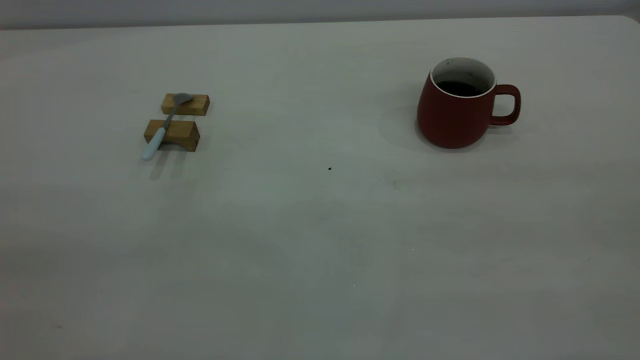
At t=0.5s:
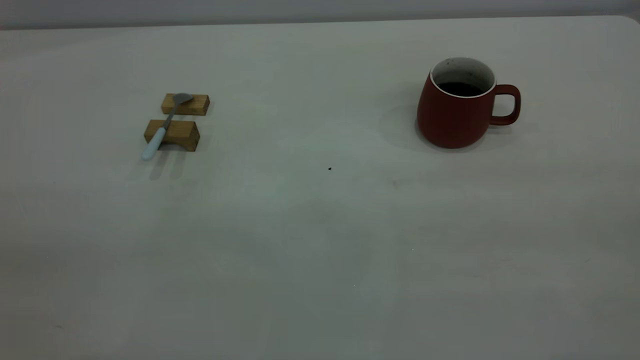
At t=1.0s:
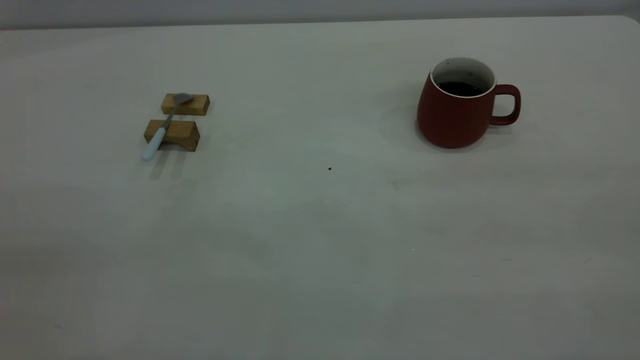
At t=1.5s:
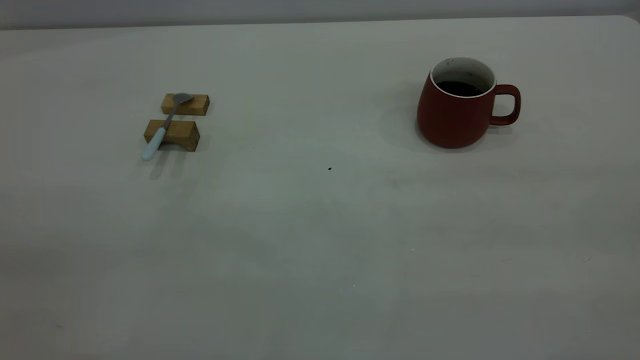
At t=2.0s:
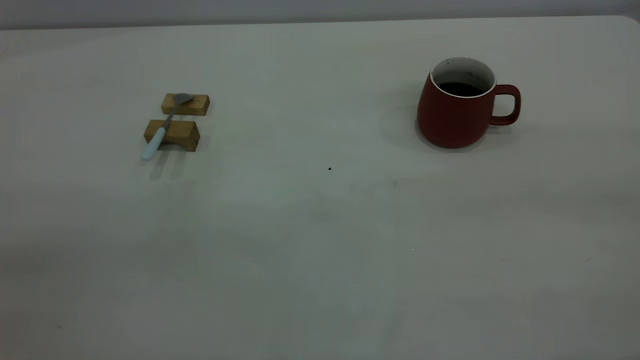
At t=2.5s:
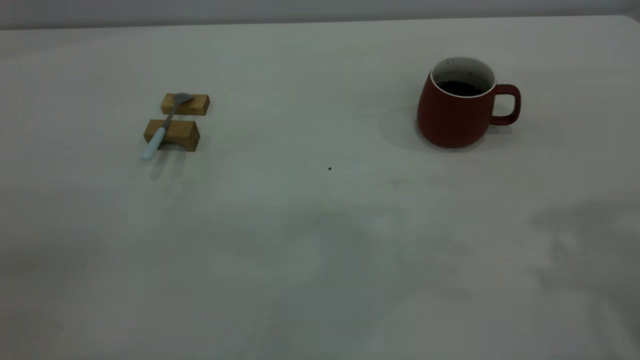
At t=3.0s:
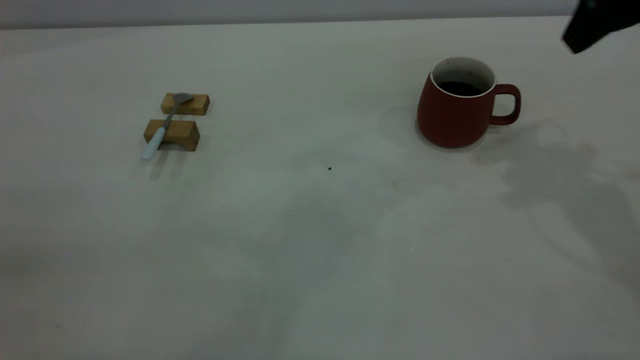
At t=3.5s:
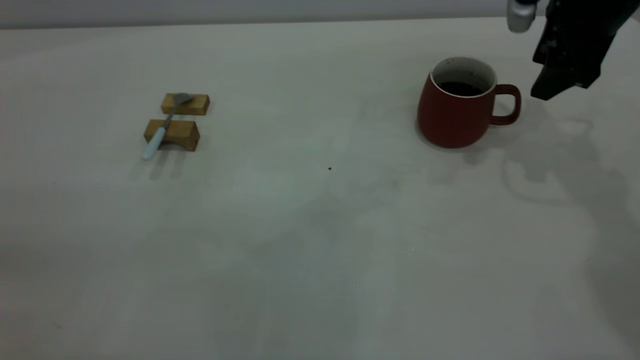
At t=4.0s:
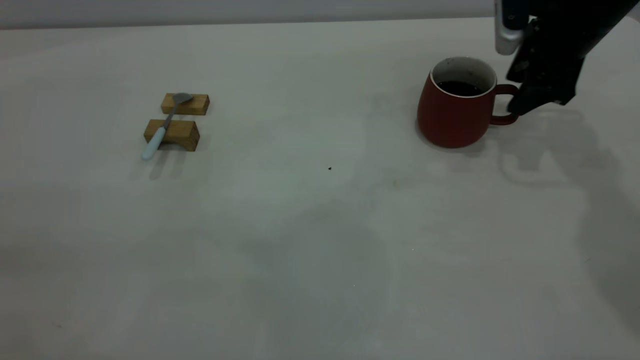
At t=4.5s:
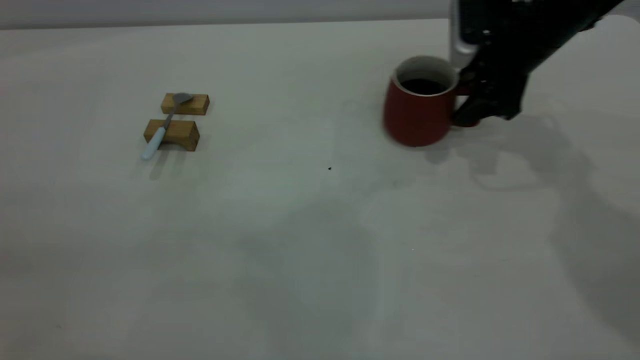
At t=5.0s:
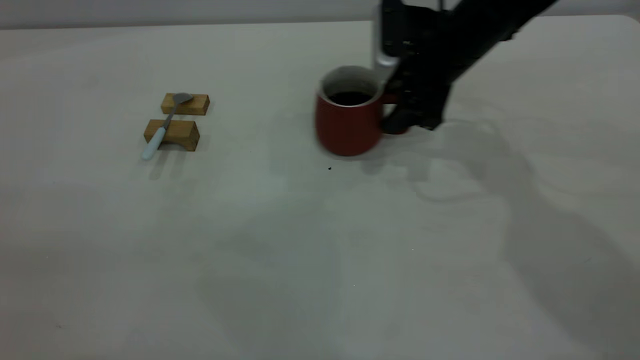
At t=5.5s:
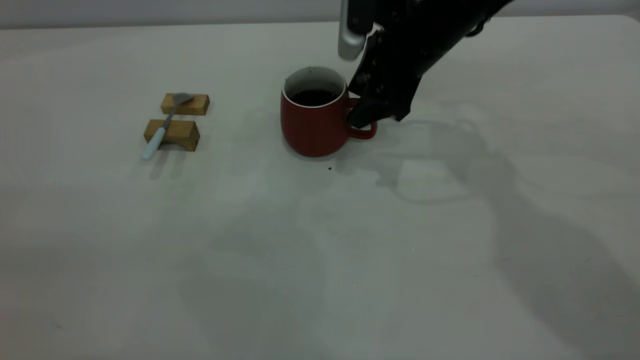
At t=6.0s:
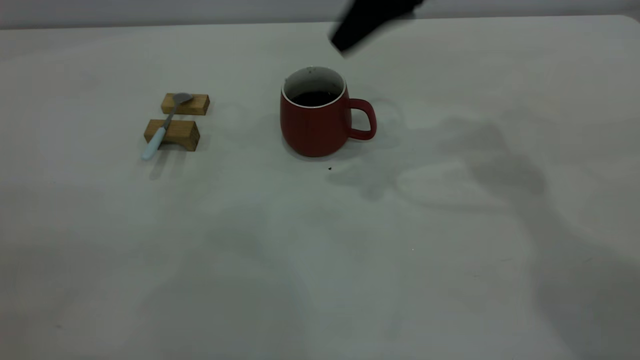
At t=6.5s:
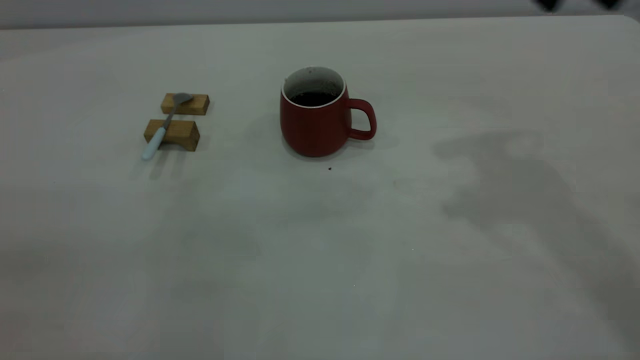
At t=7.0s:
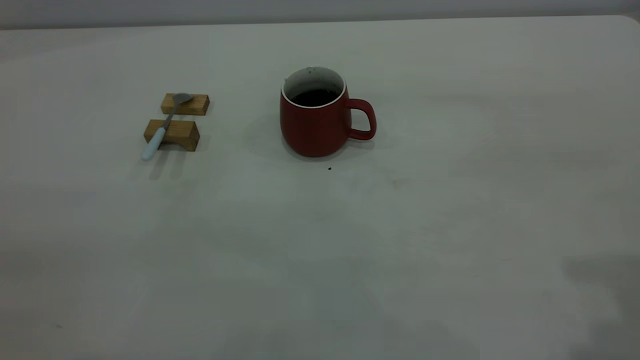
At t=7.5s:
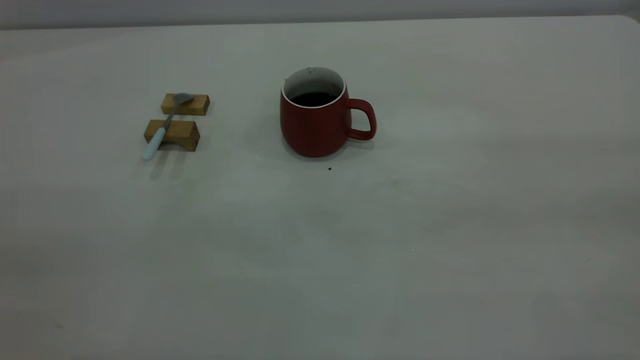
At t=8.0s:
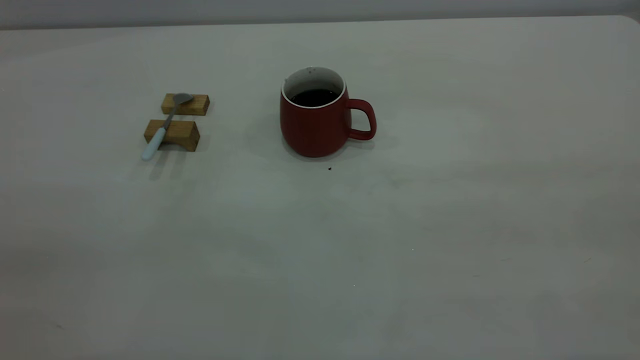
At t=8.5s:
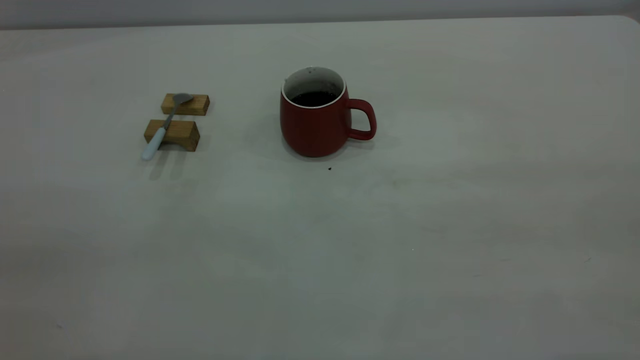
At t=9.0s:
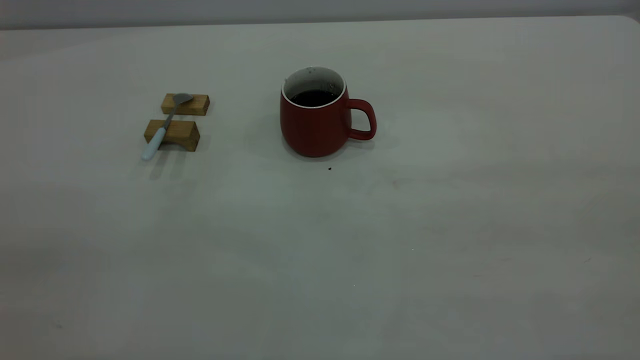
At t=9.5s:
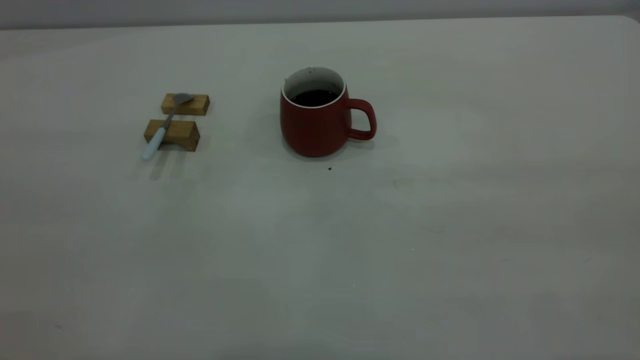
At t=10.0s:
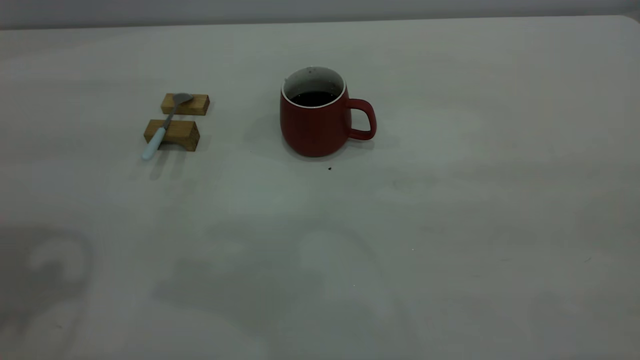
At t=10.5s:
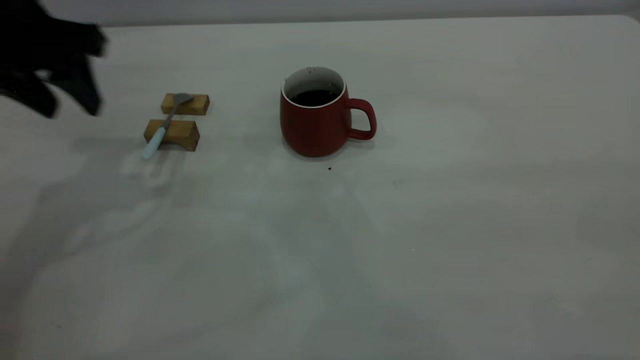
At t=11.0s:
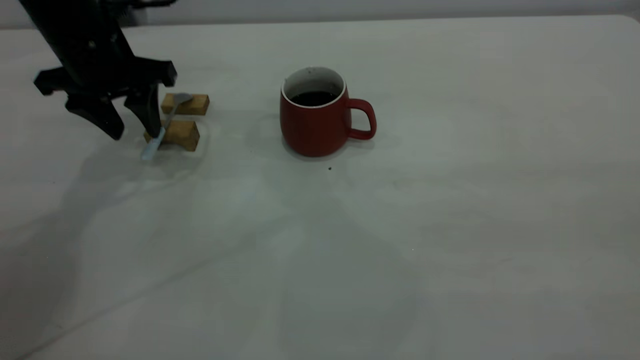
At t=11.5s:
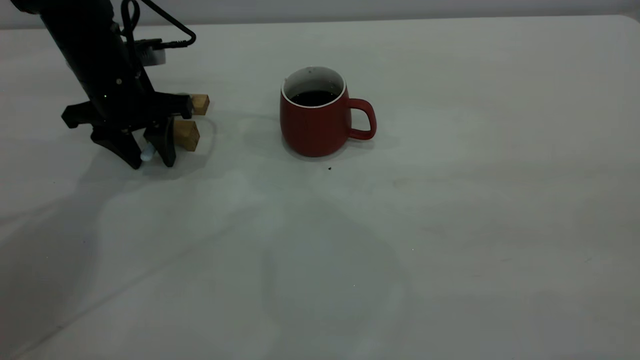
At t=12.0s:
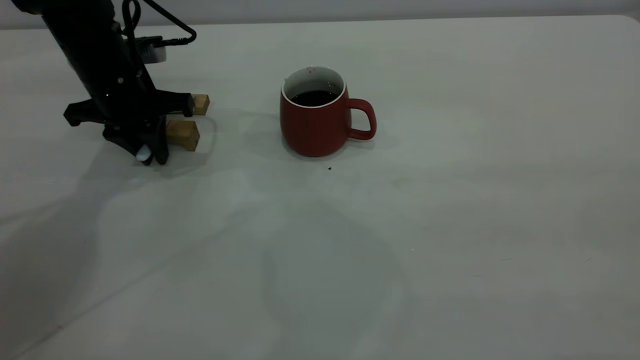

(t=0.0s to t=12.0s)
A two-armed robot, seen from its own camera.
Step, t=0.0s - t=5.5s: Move the cup with coffee to the center of view.
t=2.0s - t=4.0s: The right gripper shifts roughly 40 cm forward and downward.
t=4.0s - t=6.0s: The right gripper is displaced to the left and upward by roughly 20 cm.
t=6.0s - t=8.0s: The right gripper moves backward and to the right, approximately 40 cm.
t=10.0s - t=12.0s: The left gripper goes roughly 30 cm downward and forward, and closes its fingers.

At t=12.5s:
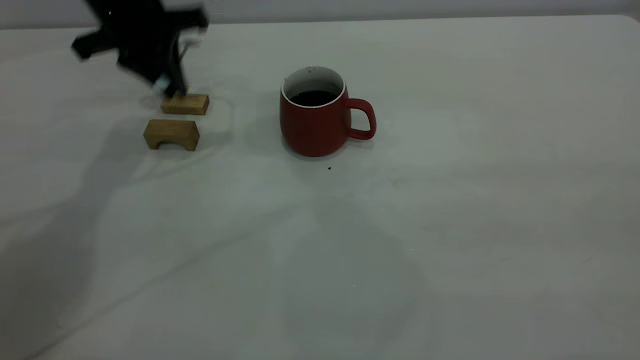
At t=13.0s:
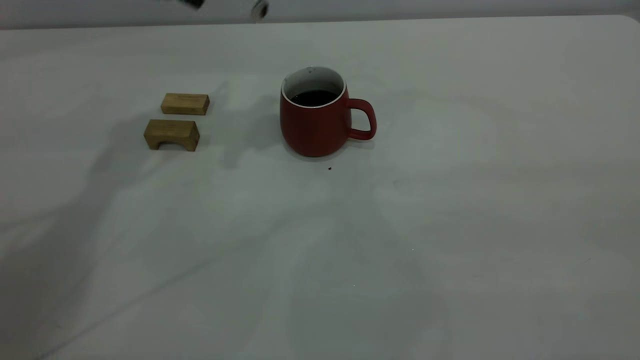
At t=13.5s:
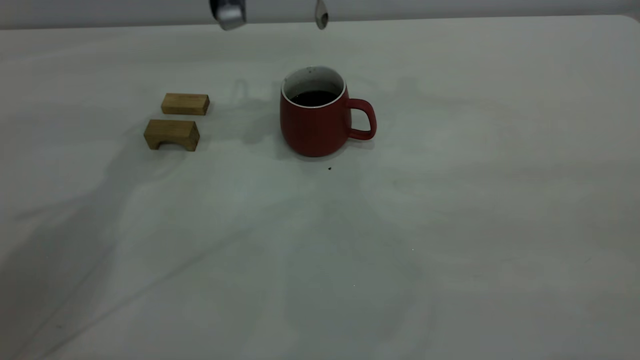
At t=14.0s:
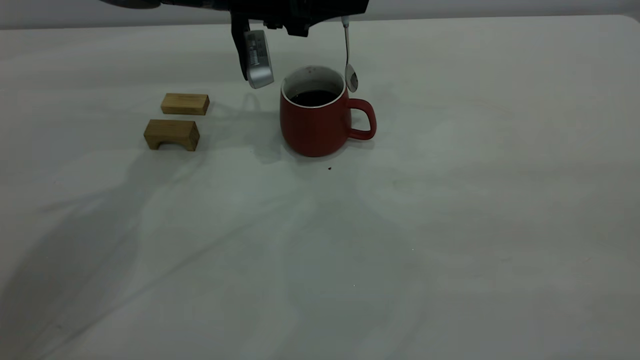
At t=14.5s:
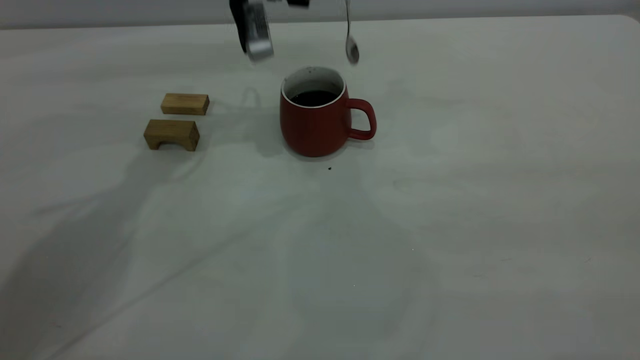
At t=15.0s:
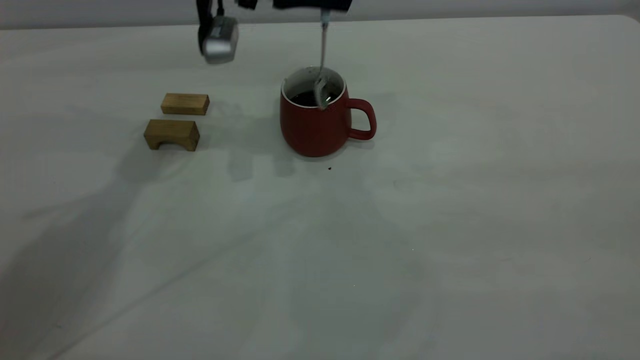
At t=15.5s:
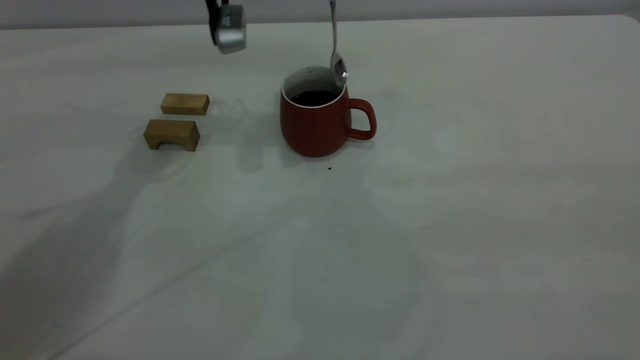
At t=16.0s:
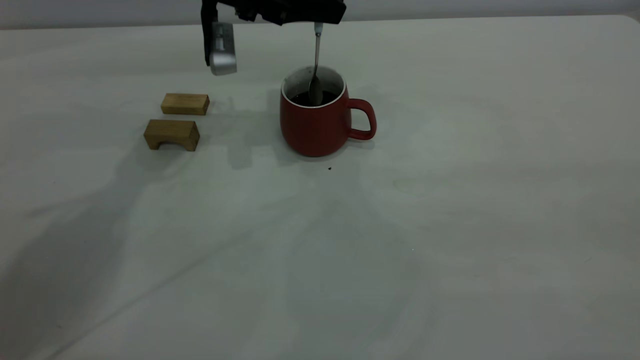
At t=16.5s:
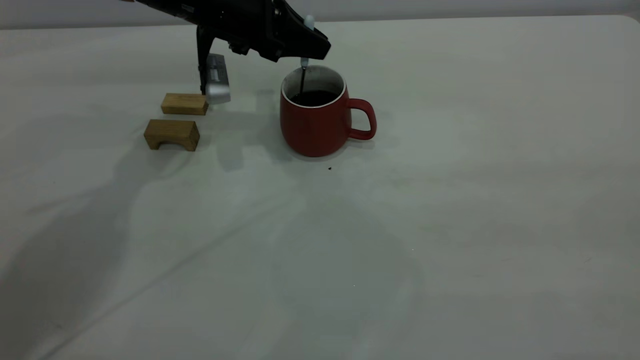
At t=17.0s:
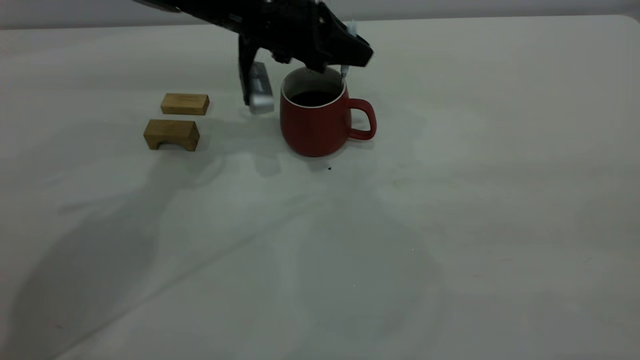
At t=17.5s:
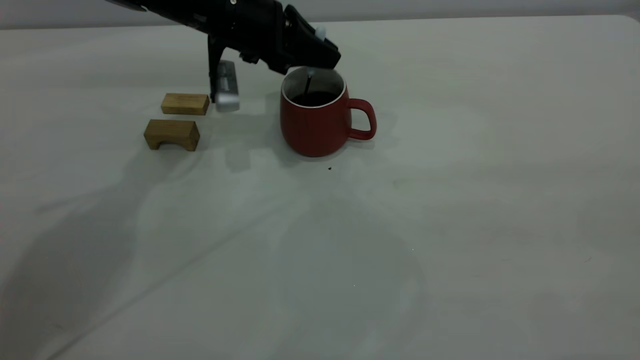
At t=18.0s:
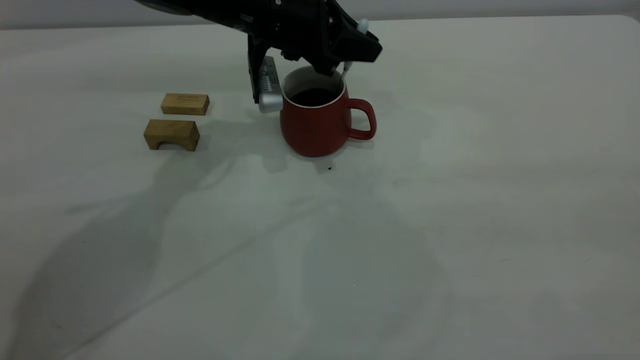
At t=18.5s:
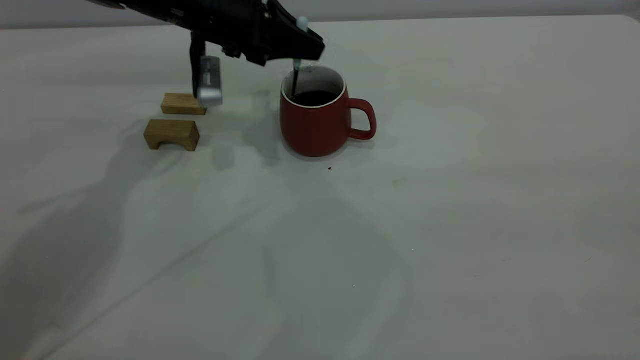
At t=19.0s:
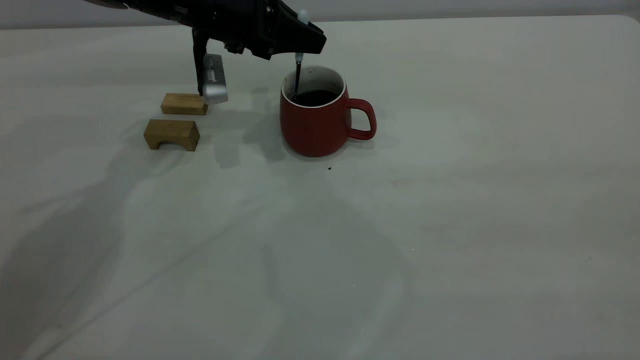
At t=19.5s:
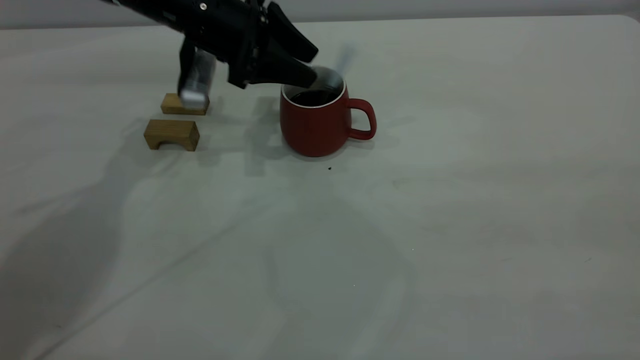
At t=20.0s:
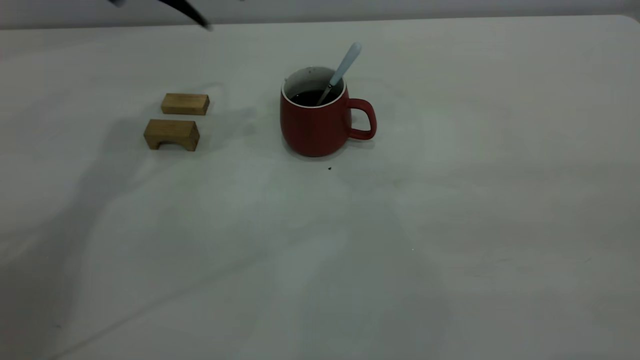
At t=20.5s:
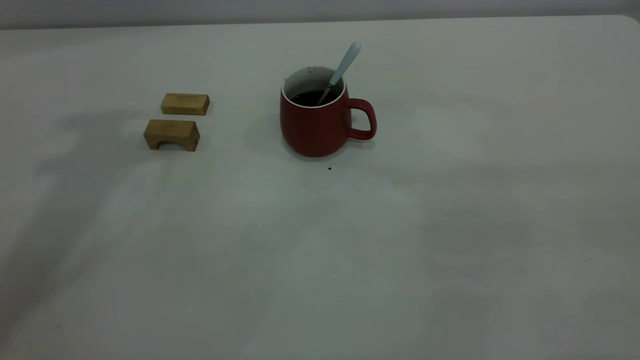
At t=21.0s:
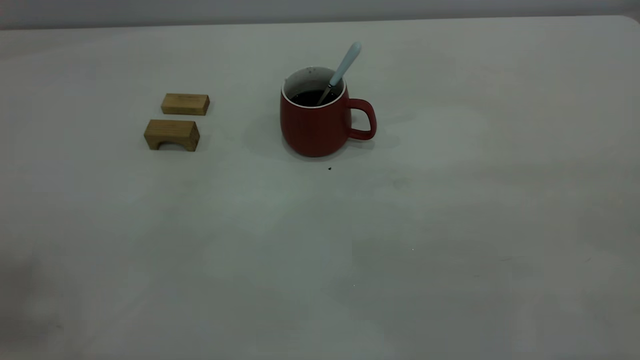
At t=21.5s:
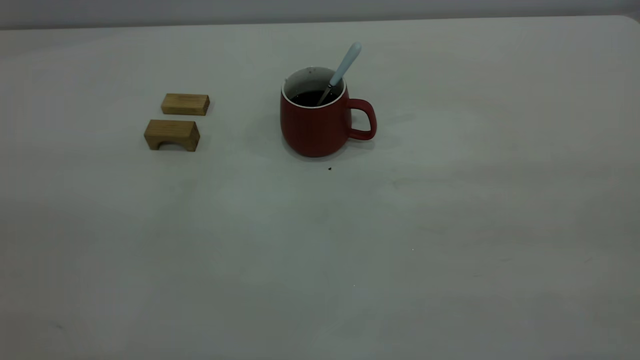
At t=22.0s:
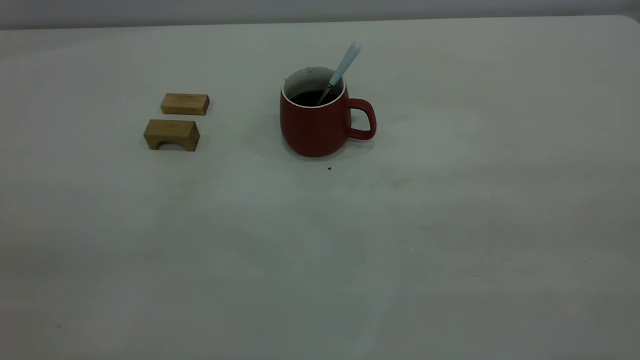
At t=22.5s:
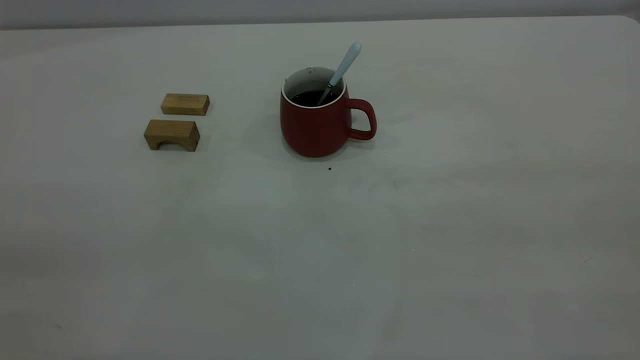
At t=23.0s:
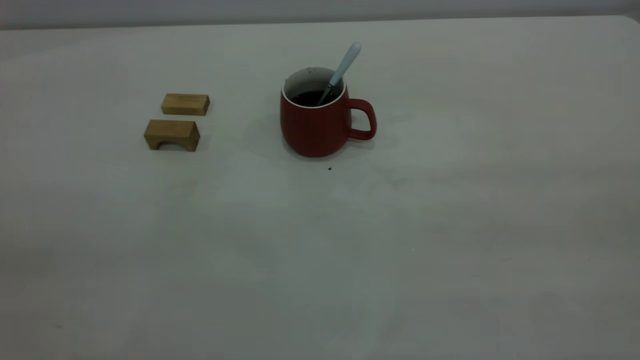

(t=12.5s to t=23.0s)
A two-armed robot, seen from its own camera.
Step, t=13.0s - t=19.5s: Stir the coffee in the cup.
t=12.5s - t=14.5s: The left gripper shifts some 10 cm to the right.
t=14.5s - t=16.5s: The left gripper moves downward, roughly 5 cm.
t=16.5s - t=19.0s: The grippers move only a little.
t=19.0s - t=21.0s: The left gripper moves upward and backward, approximately 50 cm, and opens.
